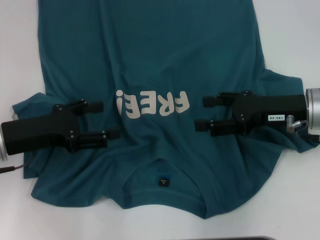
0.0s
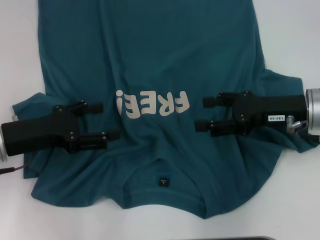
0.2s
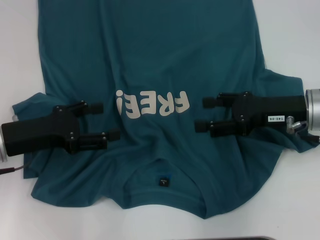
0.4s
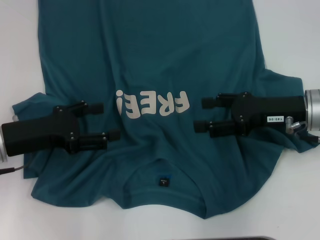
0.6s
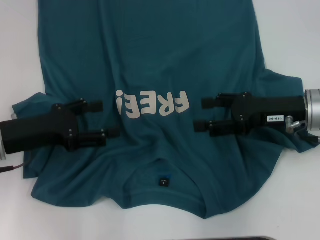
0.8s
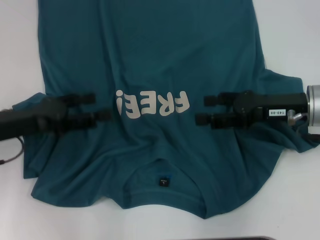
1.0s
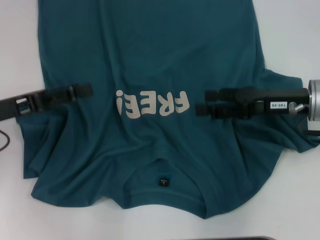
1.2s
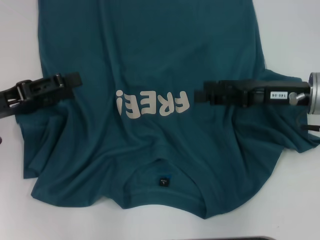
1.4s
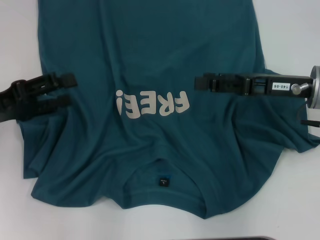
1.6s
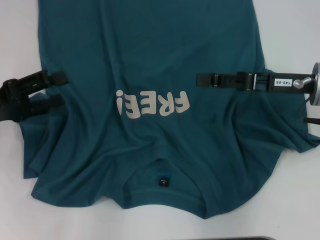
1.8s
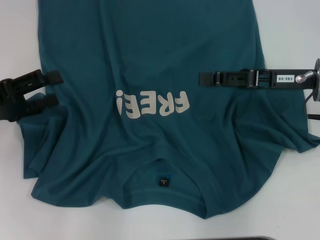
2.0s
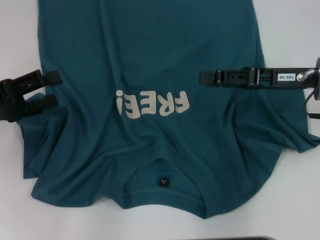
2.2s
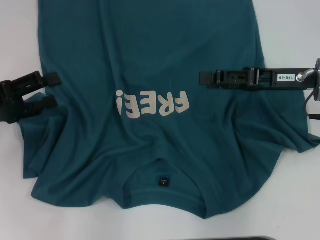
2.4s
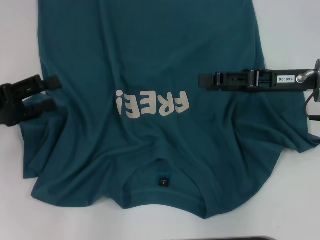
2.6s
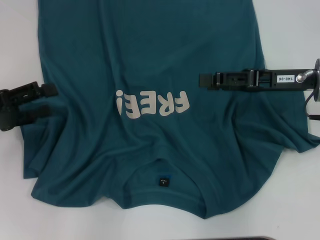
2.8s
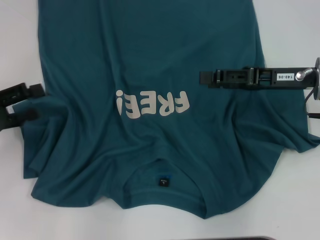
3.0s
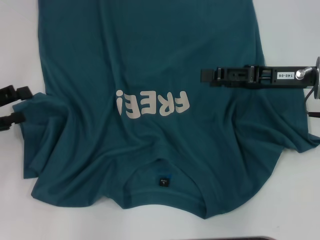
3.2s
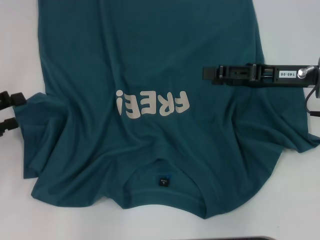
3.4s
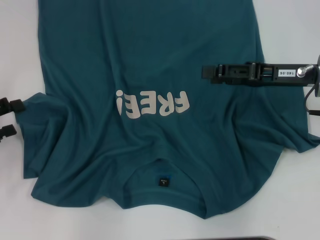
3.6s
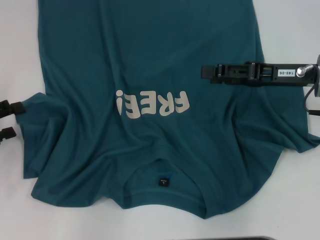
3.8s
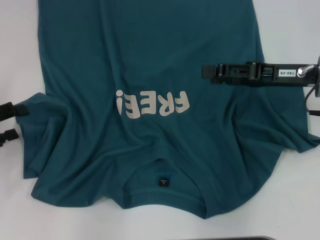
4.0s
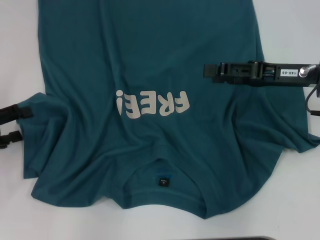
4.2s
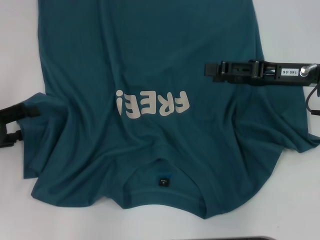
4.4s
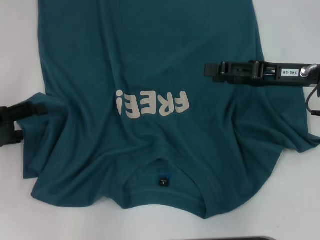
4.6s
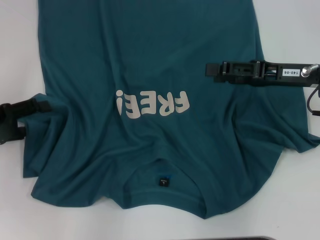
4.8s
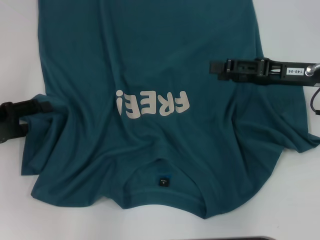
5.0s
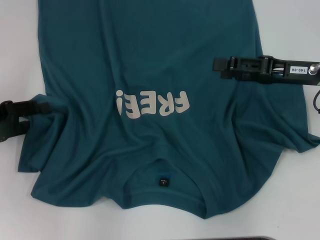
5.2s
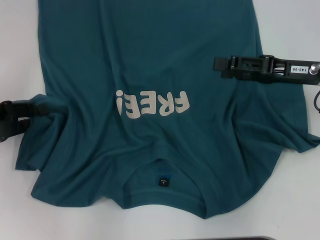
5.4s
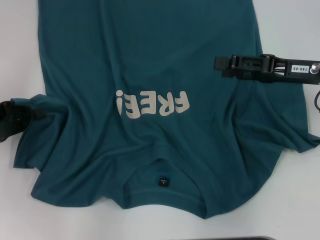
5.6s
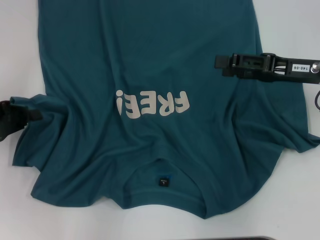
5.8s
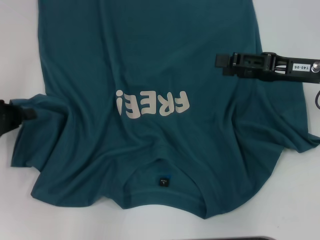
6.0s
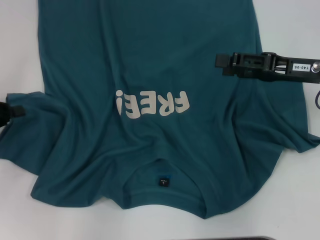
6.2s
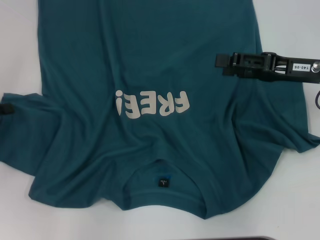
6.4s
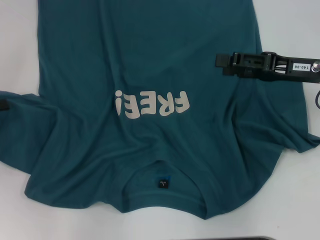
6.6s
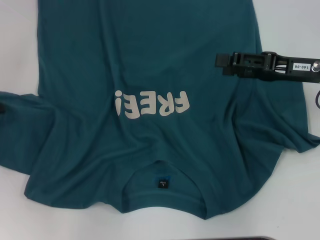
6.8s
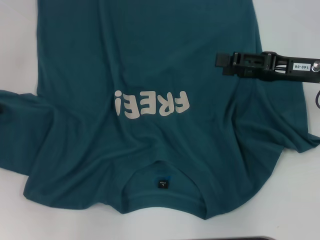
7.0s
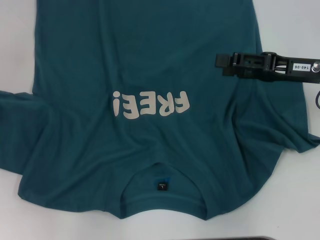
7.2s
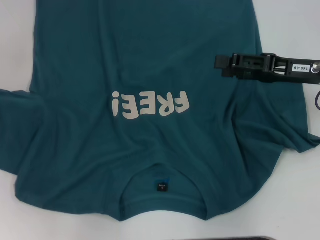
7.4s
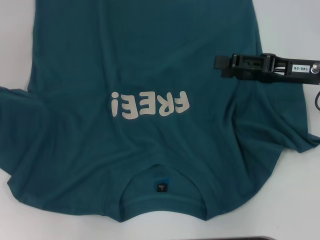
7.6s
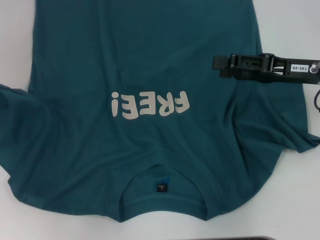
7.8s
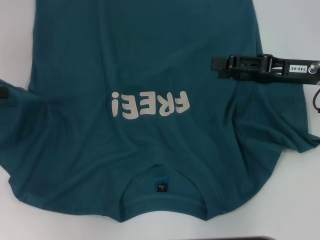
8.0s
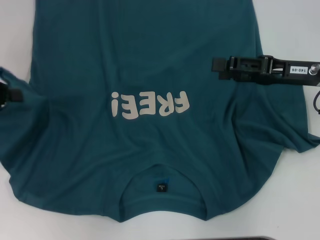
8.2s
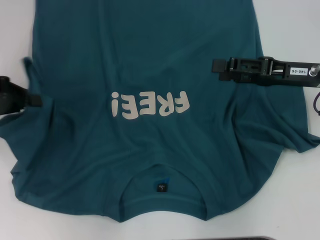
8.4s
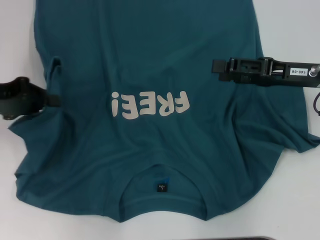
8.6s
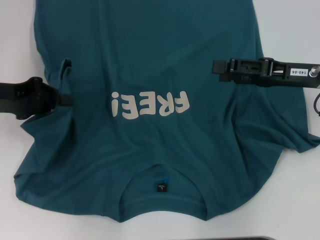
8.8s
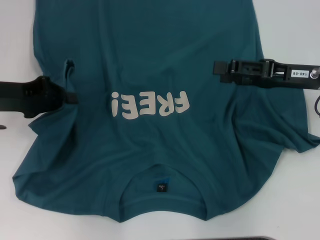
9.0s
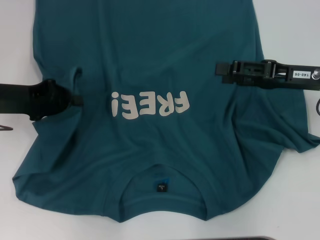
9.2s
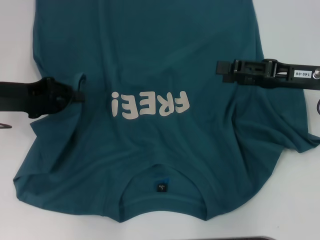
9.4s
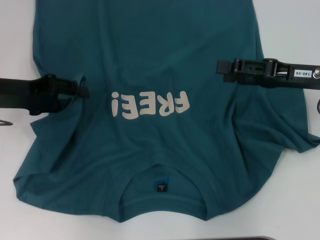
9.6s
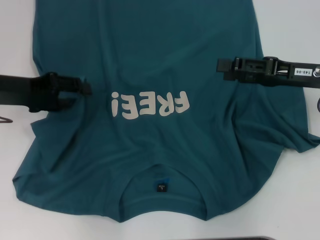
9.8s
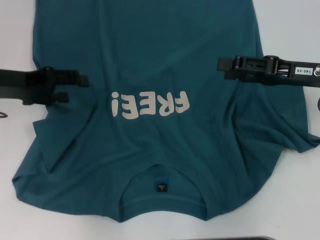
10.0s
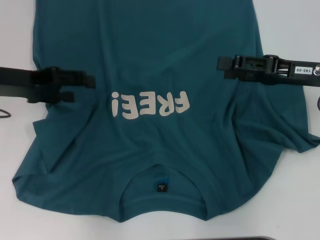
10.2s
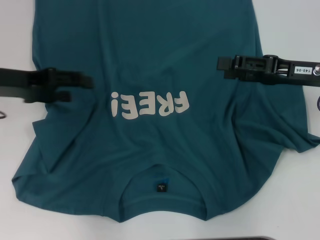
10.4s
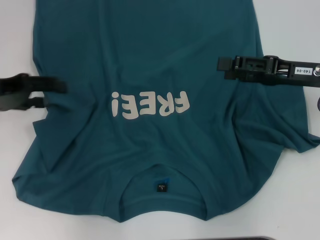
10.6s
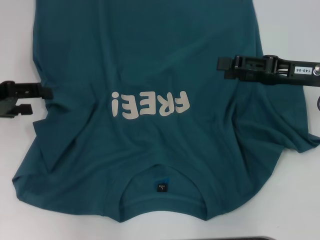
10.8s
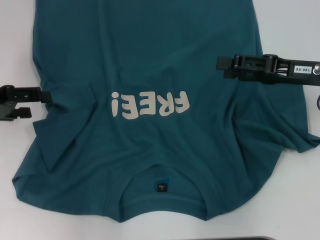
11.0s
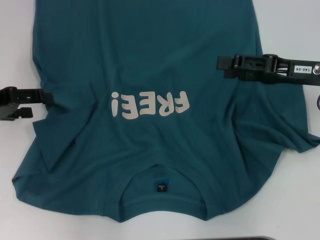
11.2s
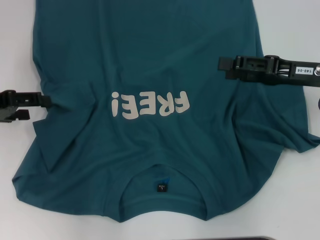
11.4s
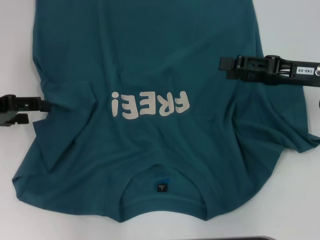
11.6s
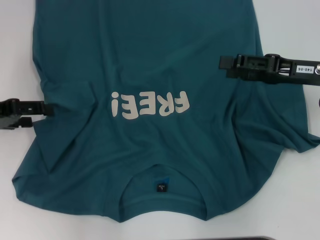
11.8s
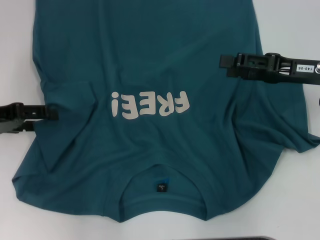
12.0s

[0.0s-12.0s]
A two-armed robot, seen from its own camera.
0.0s to 1.6s: The left gripper shifts by some 5 cm.
1.6s to 3.0s: There are only small adjustments of the grippers.
3.0s to 4.4s: The grippers stay close to where they were, moving slightly.
4.4s to 6.0s: The left gripper closes up.
6.0s to 7.6s: The left gripper heads upward, covering some 5 cm.
7.6s to 9.0s: The left gripper goes roughly 10 cm to the right.
9.0s to 10.4s: The left gripper opens its fingers.
10.4s to 12.0s: The left gripper changes place by about 5 cm.

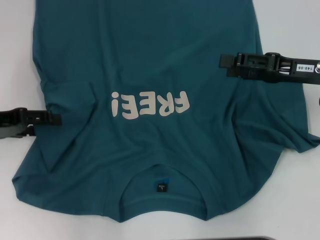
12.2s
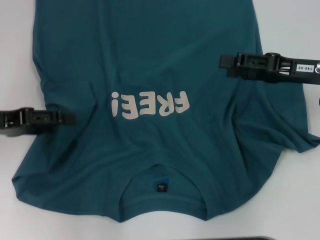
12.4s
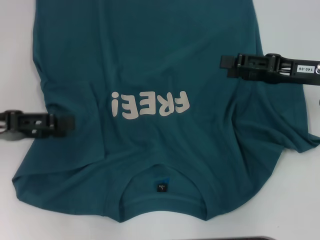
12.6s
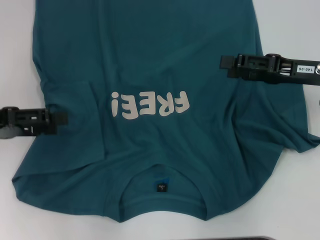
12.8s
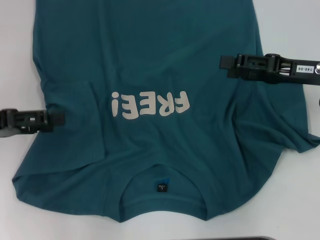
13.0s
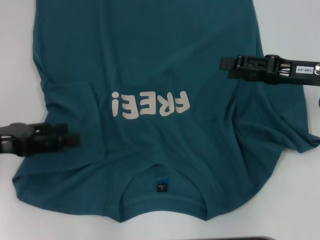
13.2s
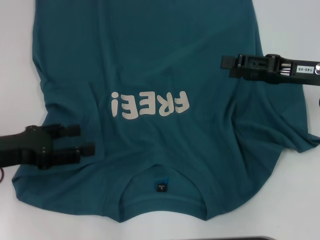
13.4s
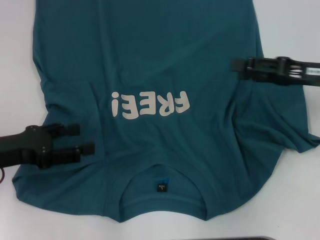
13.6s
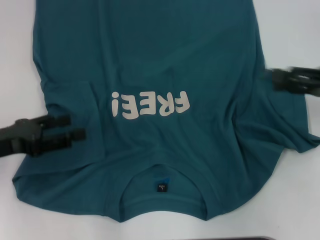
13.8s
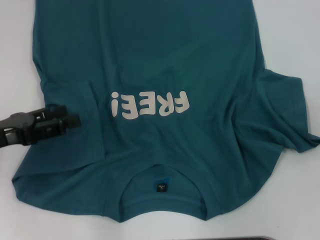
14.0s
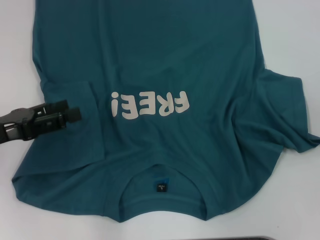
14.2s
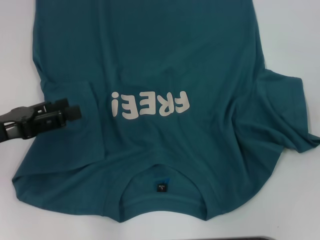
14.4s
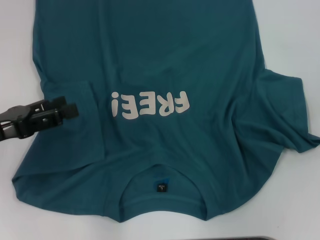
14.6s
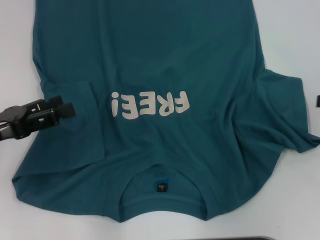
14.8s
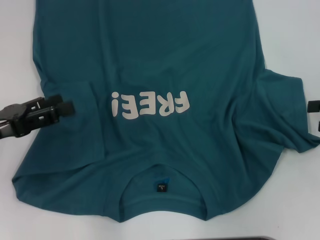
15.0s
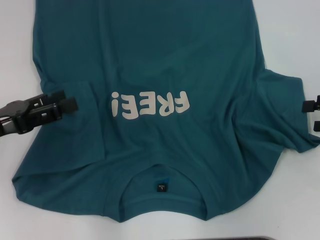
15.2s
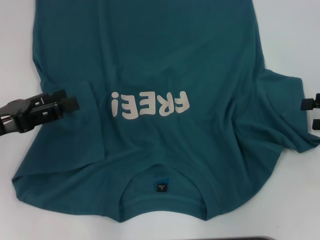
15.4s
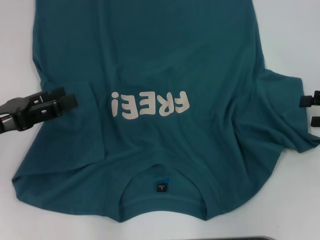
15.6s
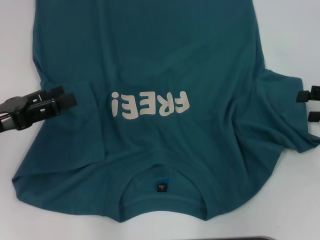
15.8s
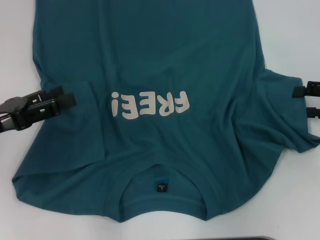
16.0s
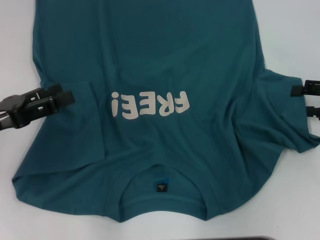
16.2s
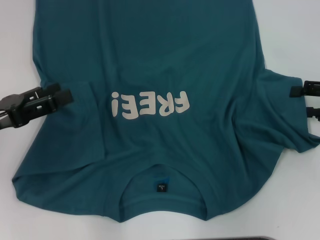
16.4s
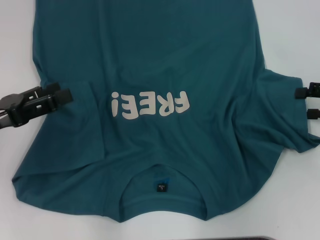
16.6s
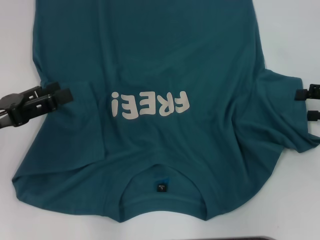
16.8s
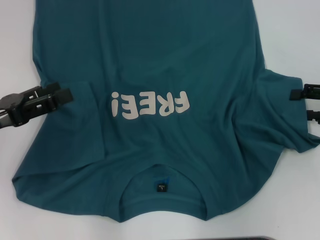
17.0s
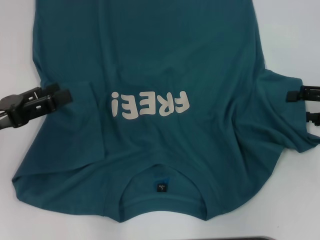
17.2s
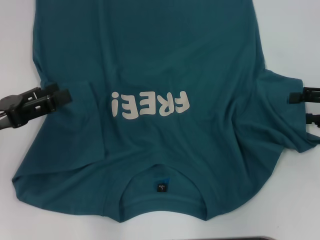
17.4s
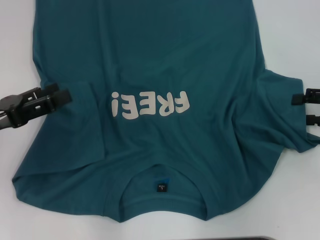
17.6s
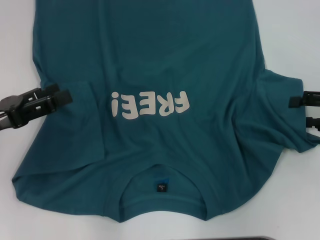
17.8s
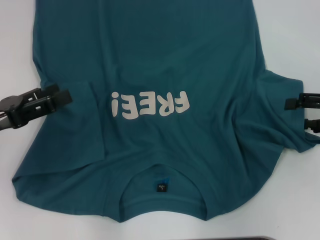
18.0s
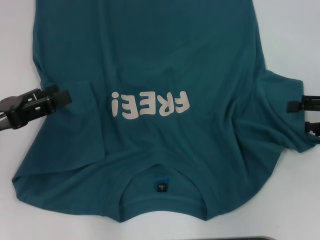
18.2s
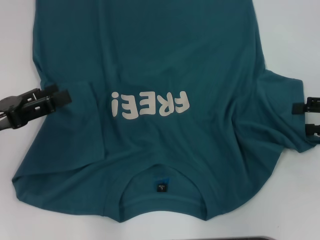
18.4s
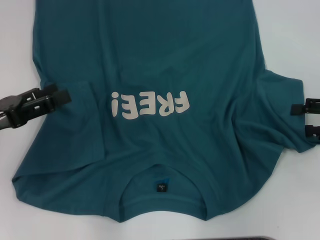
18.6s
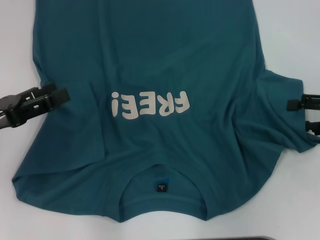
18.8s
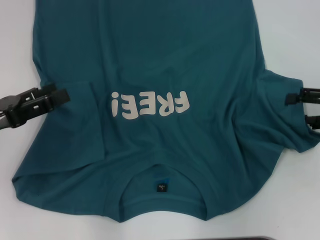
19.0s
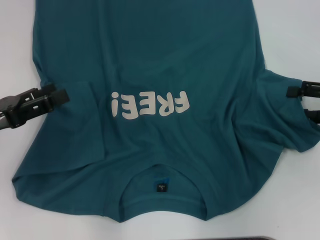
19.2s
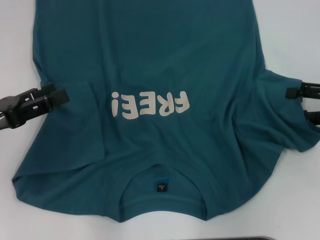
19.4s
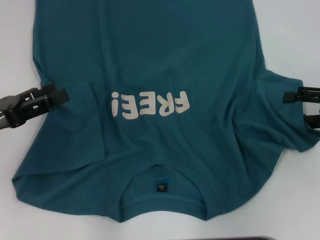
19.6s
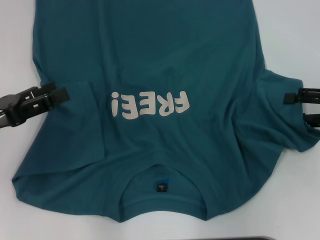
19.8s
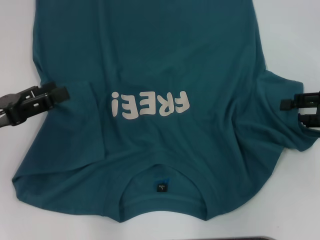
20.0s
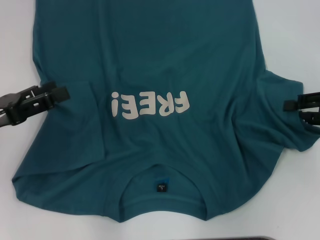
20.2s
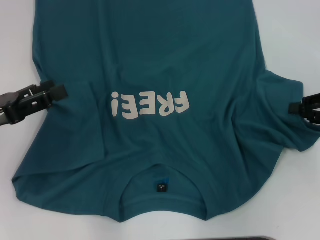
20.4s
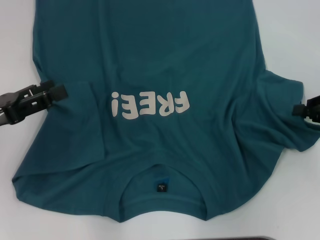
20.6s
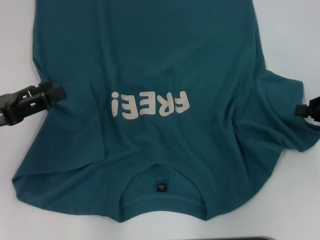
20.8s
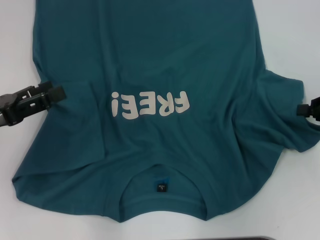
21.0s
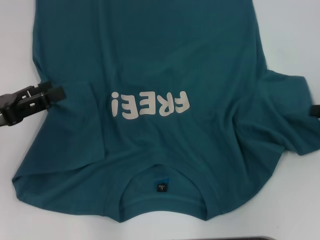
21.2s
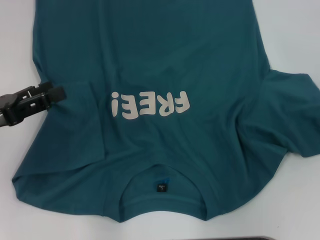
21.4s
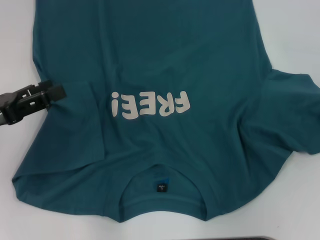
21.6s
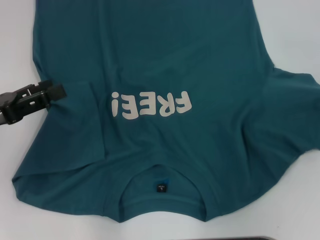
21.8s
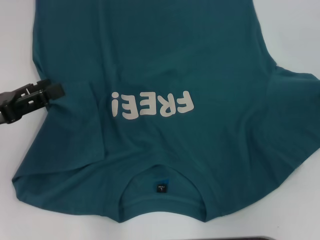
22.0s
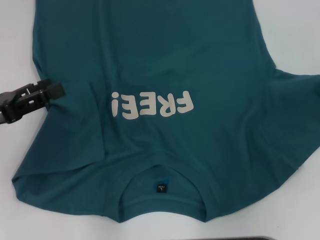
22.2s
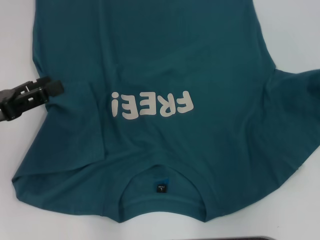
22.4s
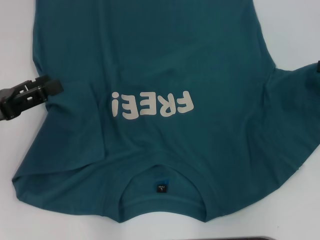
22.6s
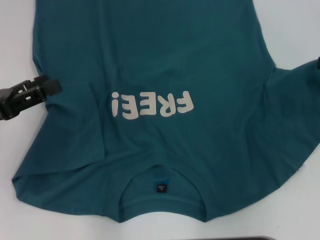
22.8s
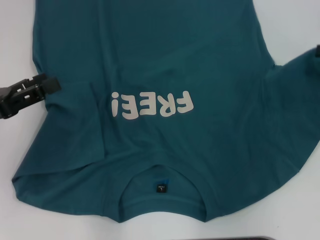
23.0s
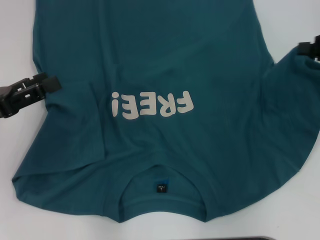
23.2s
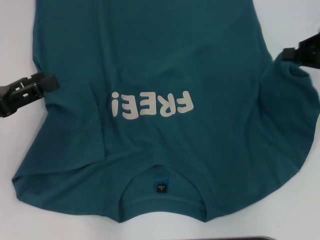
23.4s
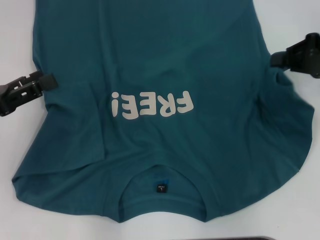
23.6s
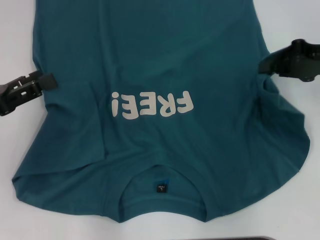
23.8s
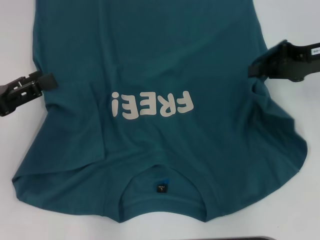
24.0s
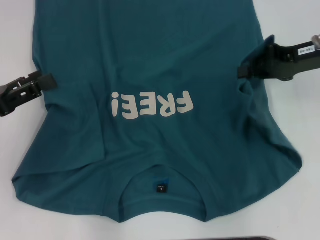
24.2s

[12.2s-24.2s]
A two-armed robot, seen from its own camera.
12.2s to 13.8s: The left gripper travels backward by about 5 cm, while the right gripper shifts approximately 5 cm to the right.
15.2s to 19.8s: The grippers move only a little.
19.8s to 21.2s: The right gripper closes up.
21.2s to 22.6s: The right gripper shifts approximately 5 cm upward.
22.6s to 24.2s: The right gripper moves to the left, about 10 cm.
